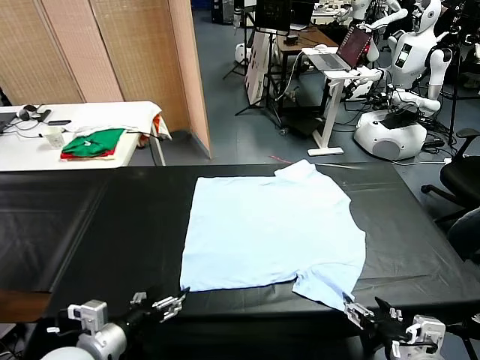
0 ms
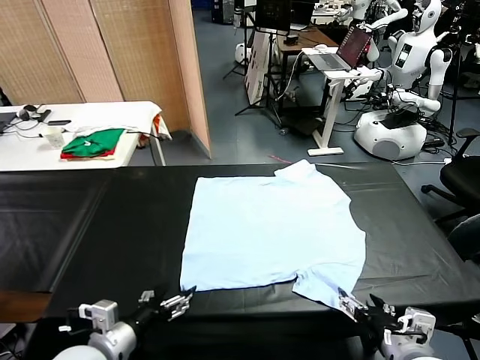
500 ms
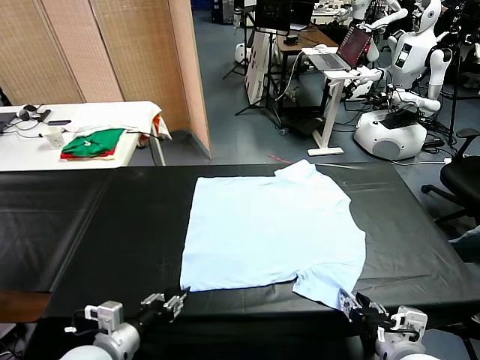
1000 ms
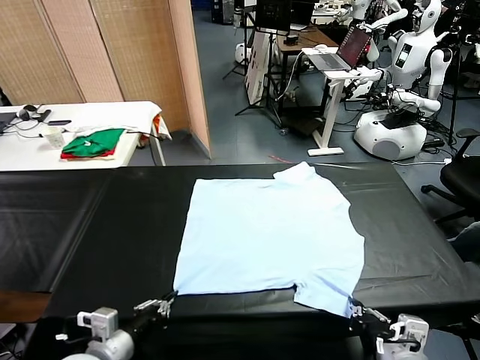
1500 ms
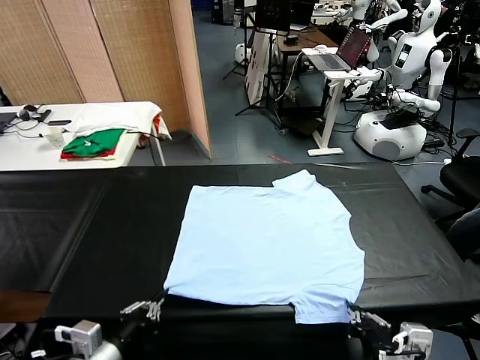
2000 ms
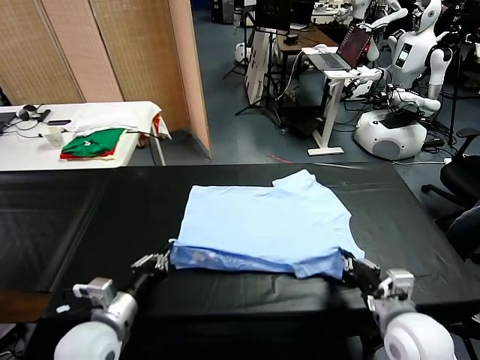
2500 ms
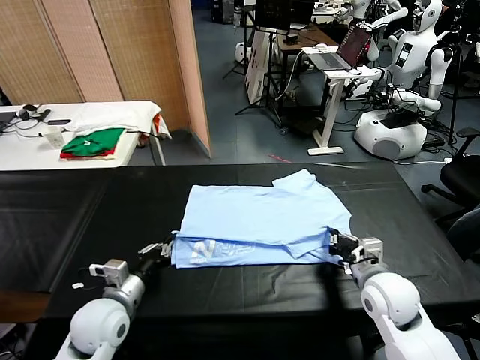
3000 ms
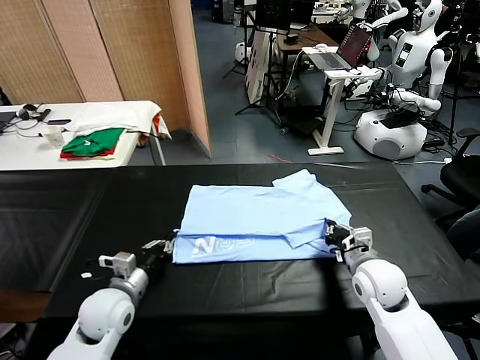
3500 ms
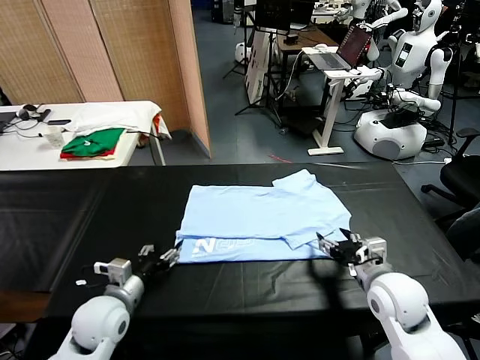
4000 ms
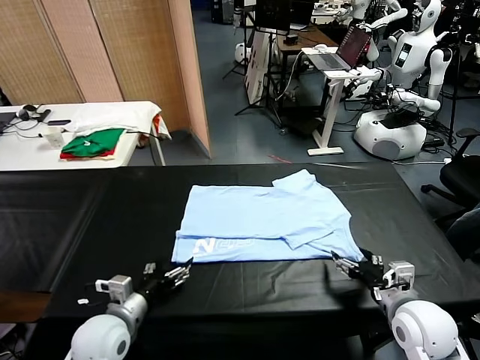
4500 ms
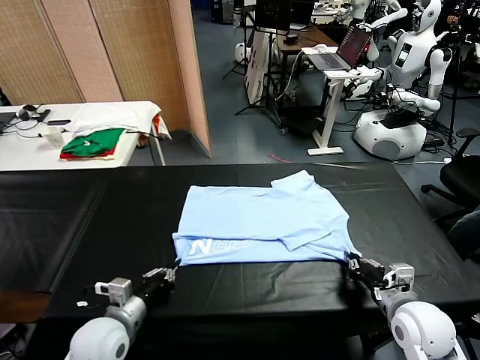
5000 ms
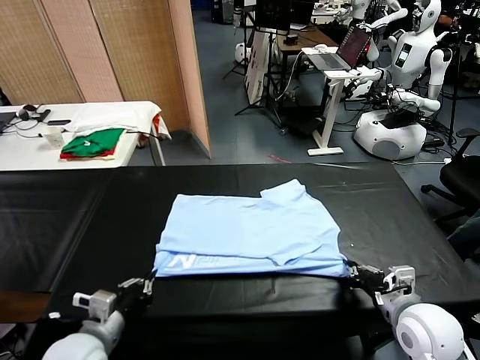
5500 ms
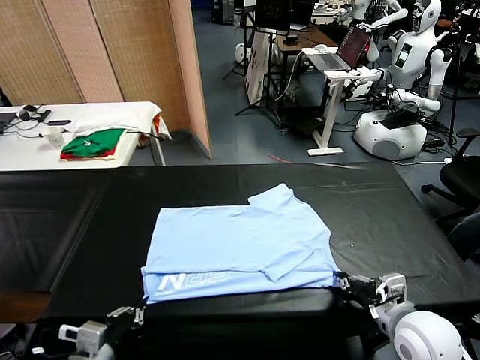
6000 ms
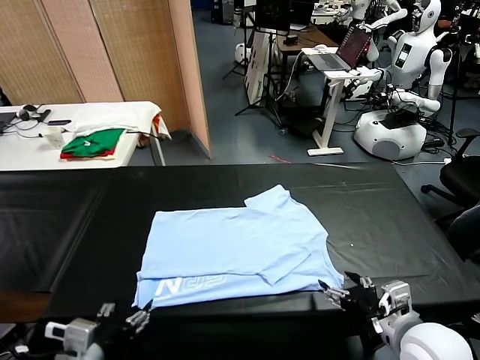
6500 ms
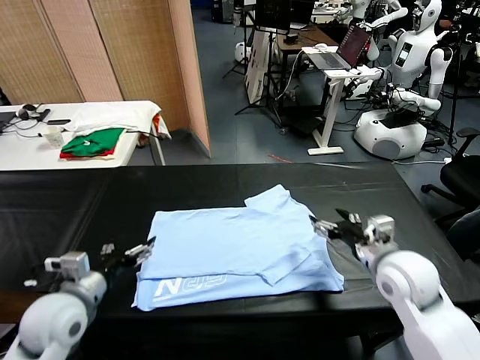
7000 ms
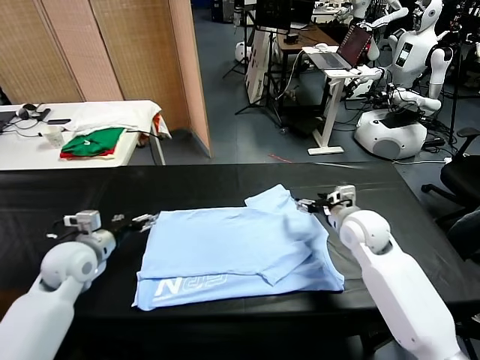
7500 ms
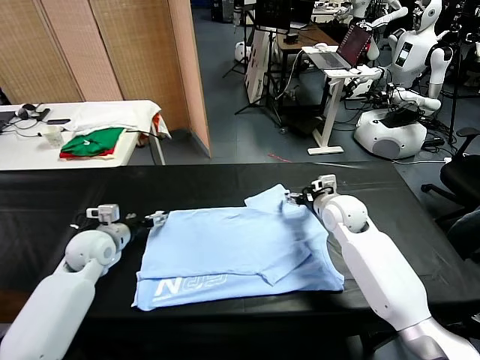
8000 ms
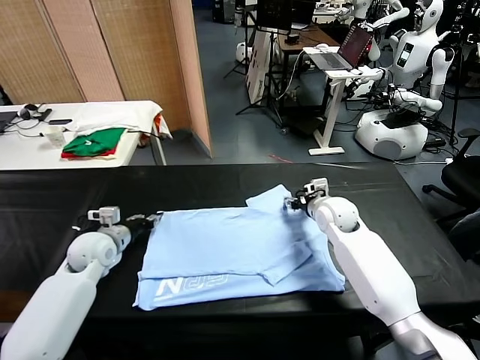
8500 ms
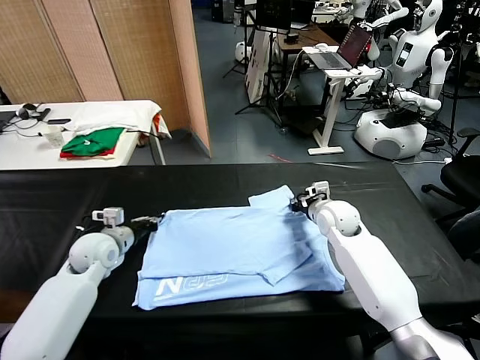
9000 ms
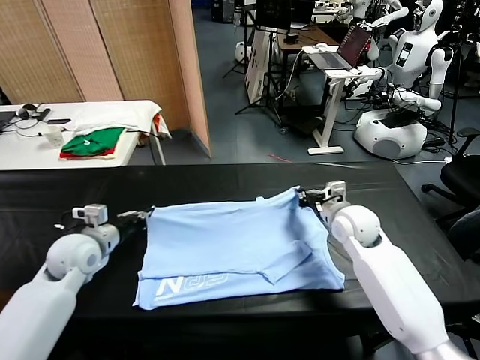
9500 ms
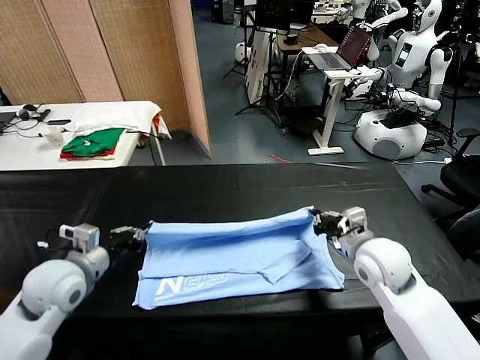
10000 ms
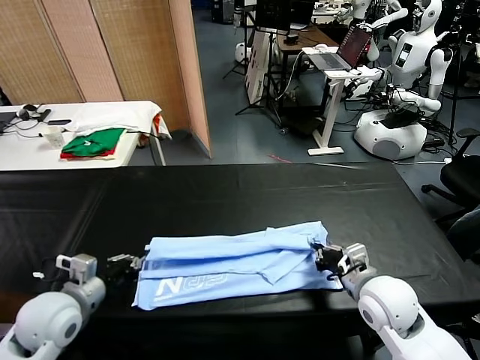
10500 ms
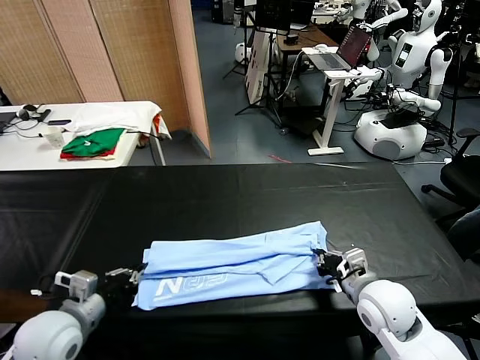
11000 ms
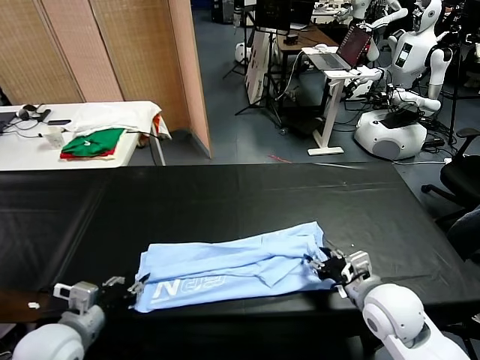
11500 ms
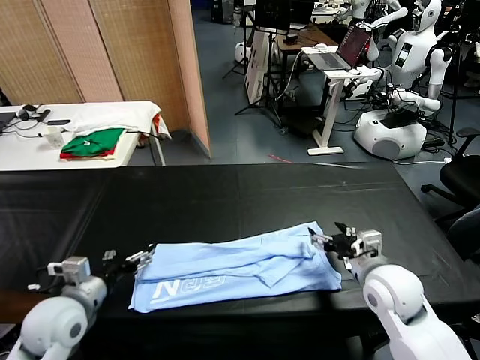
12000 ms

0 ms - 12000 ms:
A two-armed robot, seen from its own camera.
Task of the whole recording: fold and organize the clothes.
Step, 0 ms - 1000 ms: use both grippers simultaneously to clamp the lower edge of the clothing fabric.
Step, 1500 ms - 3500 ms: use both grippers to drag the lower edge of the fabric forward and fold it over the upper edge.
Step, 4000 ms - 6000 ms: Drag the clothes downward with both gripper.
Step, 6500 ms - 8500 ms: use both grippers simultaneously to clamp the upper edge of the clothing fabric.
Step, 9000 ms - 11500 ms: use both grippers to drag the upper edge of the fabric backward and fold it over the lower edge.
2000 ms - 4000 ms: The left gripper heads forward and downward, covering approximately 15 cm, and opens. Meanwhile the right gripper moves forward, roughly 5 cm, and opens.
4000 ms - 6000 ms: The right gripper ends up roughly 5 cm from where it was, and closes; the left gripper is displaced backward by some 15 cm, and closes up.
6000 ms - 8000 ms: The two grippers go about 30 cm forward. The right gripper opens up. Meanwhile the left gripper opens its fingers.
8000 ms - 10000 ms: The left gripper shifts roughly 15 cm backward and upward, and closes up. Meanwhile the right gripper is displaced backward by about 20 cm, and closes up.
10000 ms - 12000 ms: The left gripper opens up; the right gripper opens.

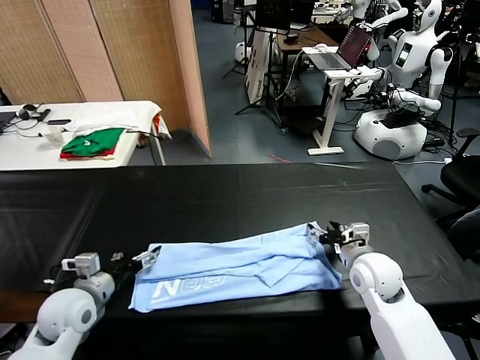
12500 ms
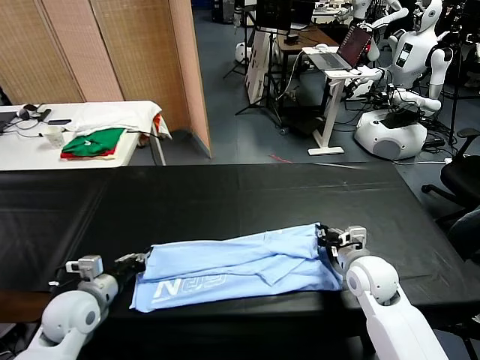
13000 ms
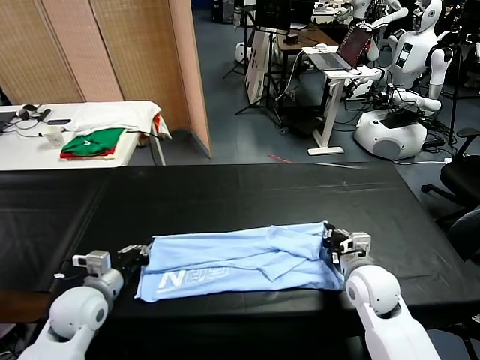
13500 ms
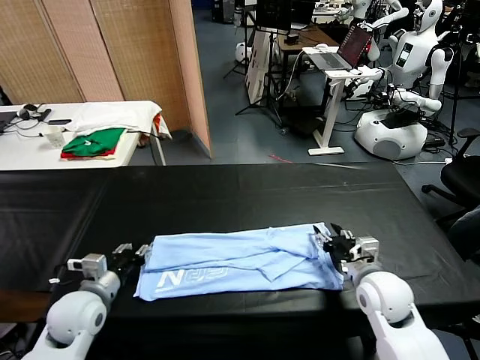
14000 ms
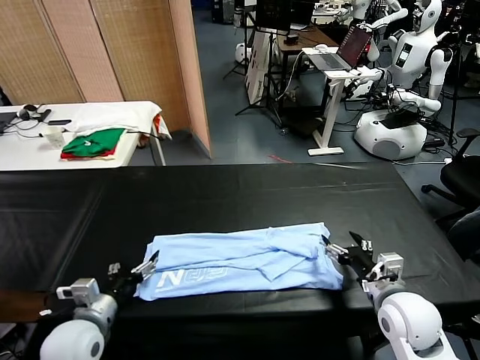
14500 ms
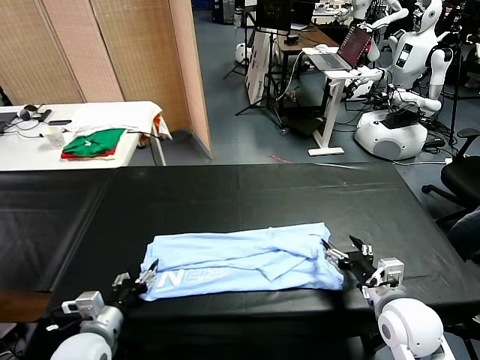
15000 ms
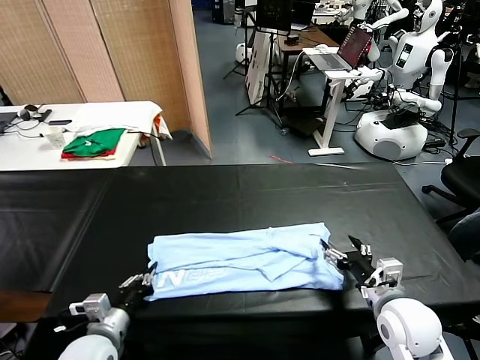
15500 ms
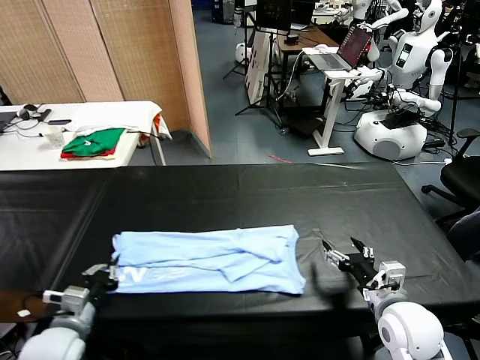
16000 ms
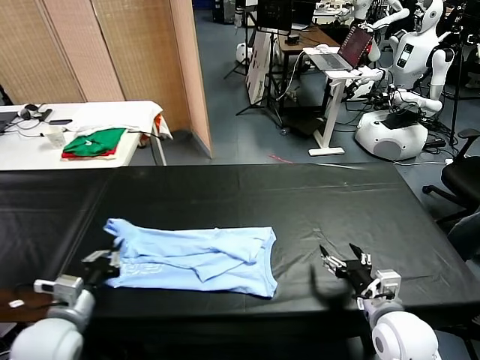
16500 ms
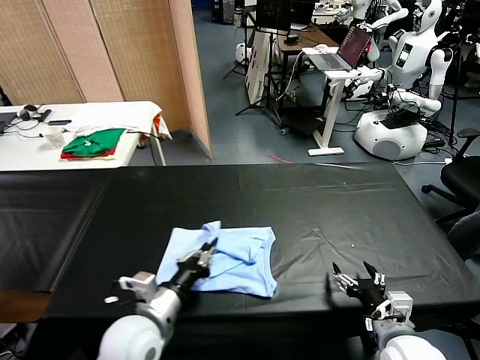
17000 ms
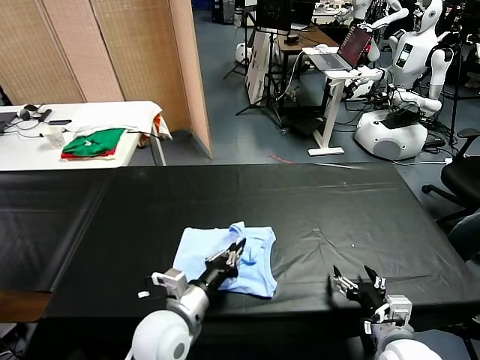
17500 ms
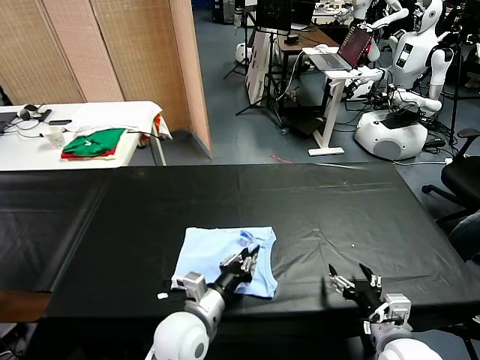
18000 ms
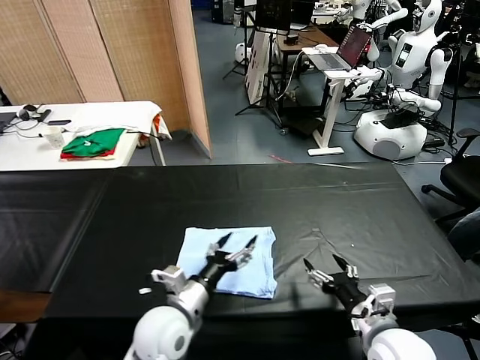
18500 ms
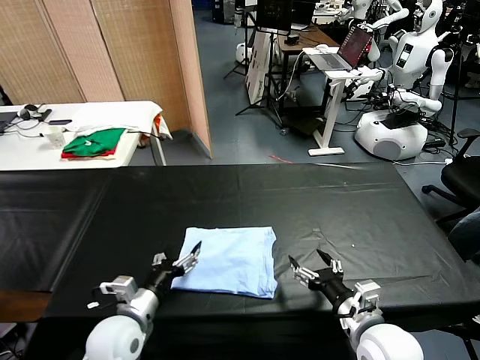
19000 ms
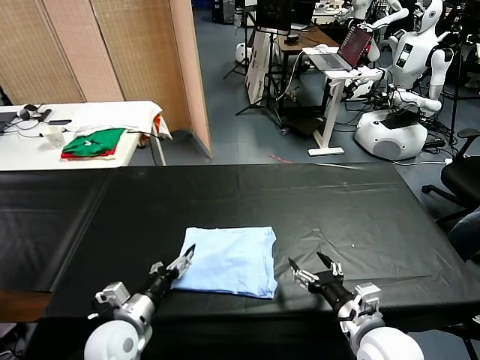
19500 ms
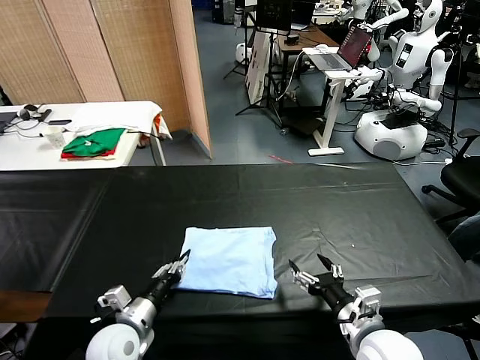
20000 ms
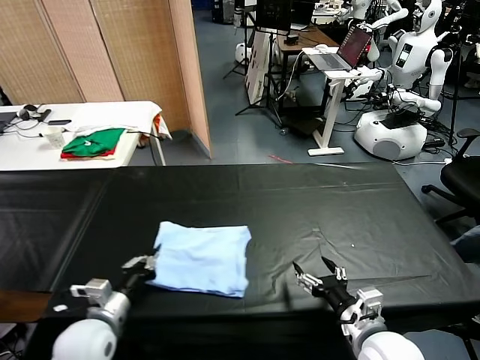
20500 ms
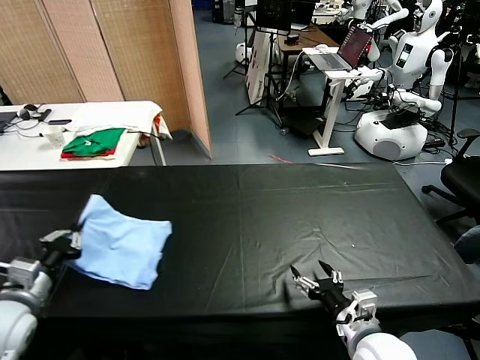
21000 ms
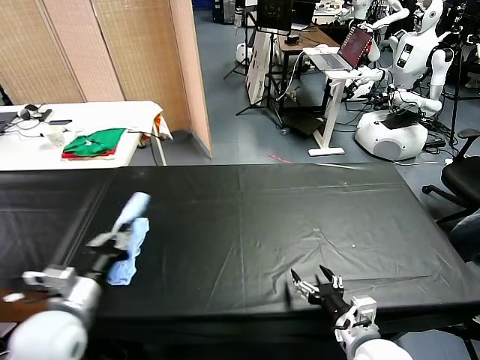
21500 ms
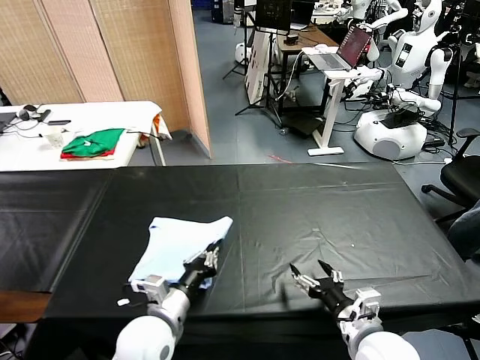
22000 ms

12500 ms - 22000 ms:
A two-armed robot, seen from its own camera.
Task of the whole recording: fold and organize the clothes.
Step, 12500 ms - 15500 ms: use the left gripper to clamp the left edge of the fabric.
Step, 16000 ms - 18000 ms: use the left gripper to drag the left edge of the fabric to the left and folds it over the right edge.
12500 ms - 14500 ms: The left gripper is displaced backward by about 5 cm, and closes, then reopens, while the right gripper travels backward by approximately 10 cm, and closes, then reopens.
14500 ms - 16500 ms: The left gripper closes its fingers.
16500 ms - 18000 ms: The left gripper shifts some 20 cm to the right.
18000 ms - 20000 ms: The left gripper is displaced to the left by some 15 cm, and opens and closes again.
20000 ms - 22000 ms: The left gripper heads to the right and upward, covering roughly 10 cm.

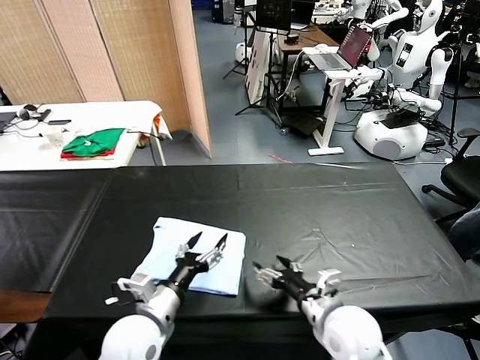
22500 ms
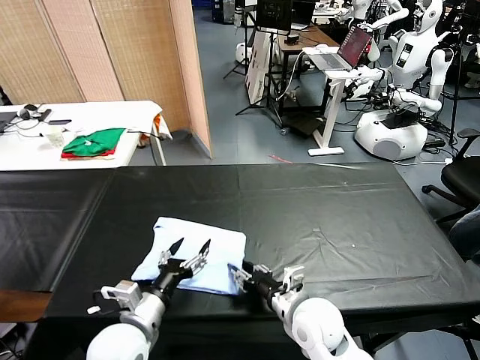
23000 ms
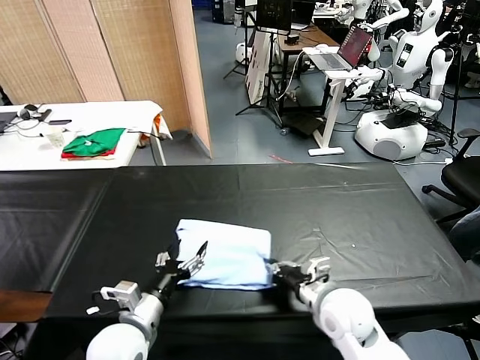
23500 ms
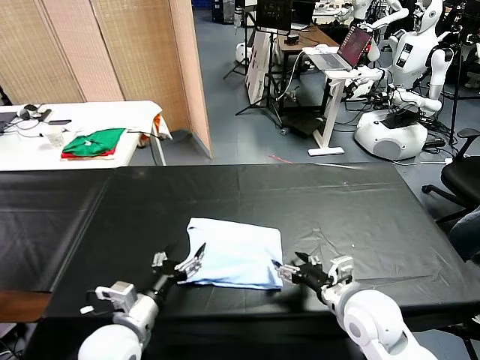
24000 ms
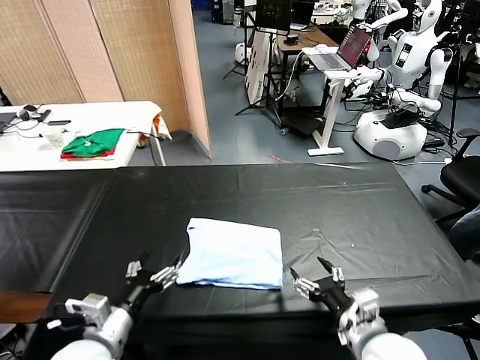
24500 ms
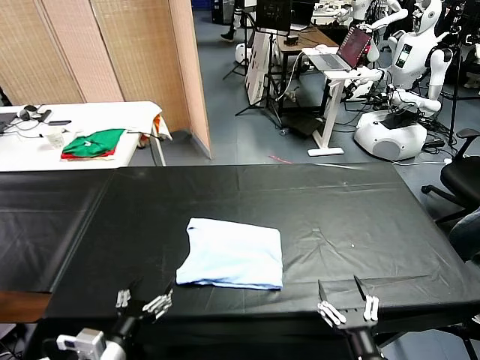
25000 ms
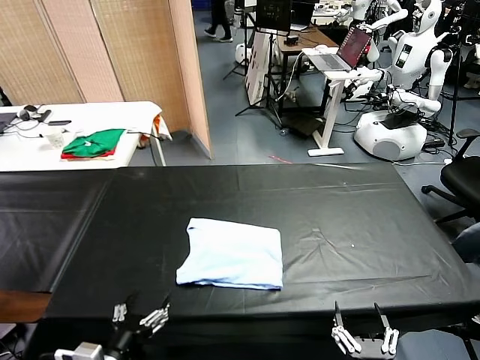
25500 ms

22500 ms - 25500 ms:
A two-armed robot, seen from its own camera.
Task of the whole recording: fold and organize the clothes.
Step, 22500 ms - 23500 ms: Drag the clothes to the center of the table.
22500 ms - 24000 ms: The right gripper closes, then reopens.
24000 ms - 25500 ms: The right gripper travels backward by roughly 20 cm; the left gripper shifts about 10 cm backward.
